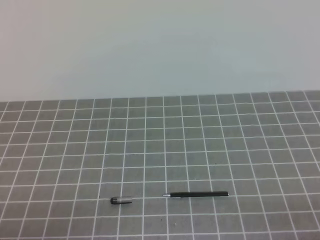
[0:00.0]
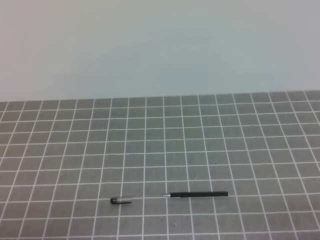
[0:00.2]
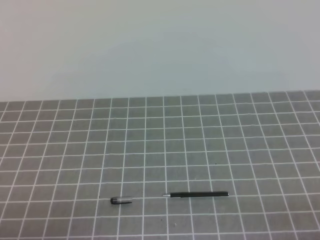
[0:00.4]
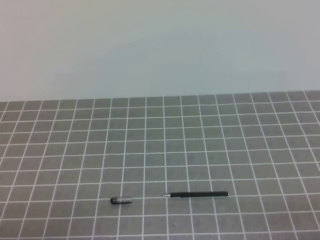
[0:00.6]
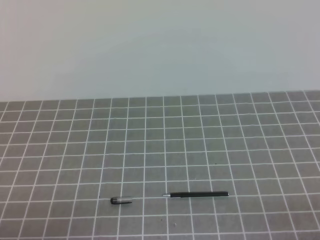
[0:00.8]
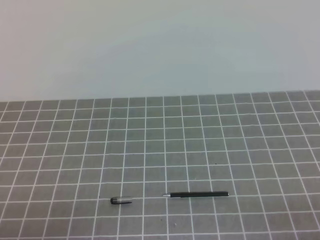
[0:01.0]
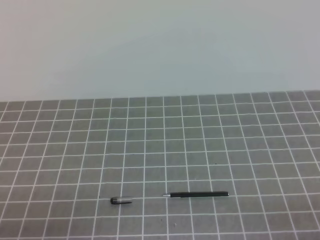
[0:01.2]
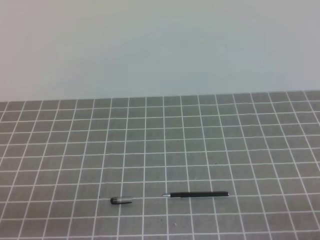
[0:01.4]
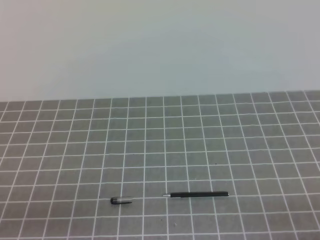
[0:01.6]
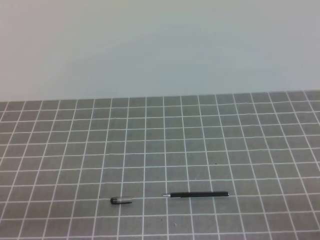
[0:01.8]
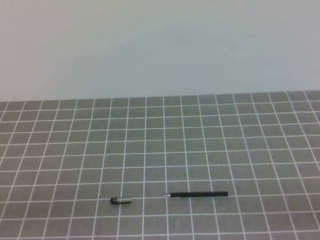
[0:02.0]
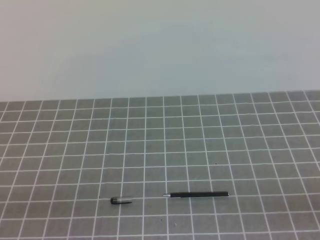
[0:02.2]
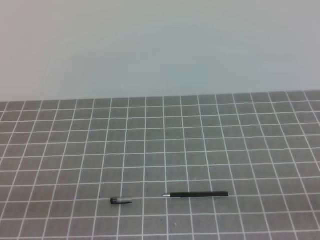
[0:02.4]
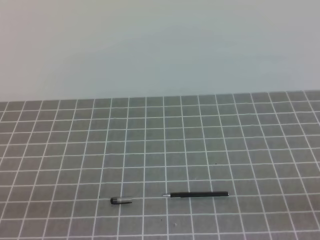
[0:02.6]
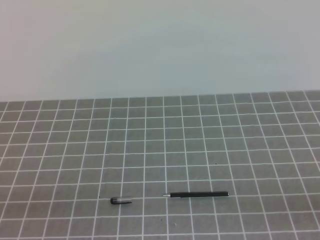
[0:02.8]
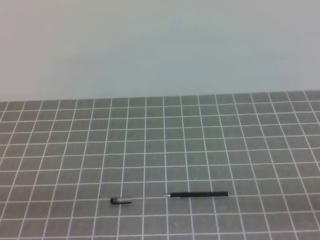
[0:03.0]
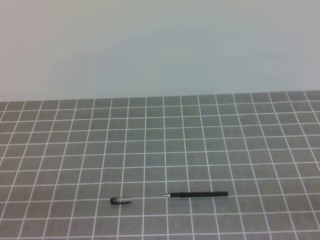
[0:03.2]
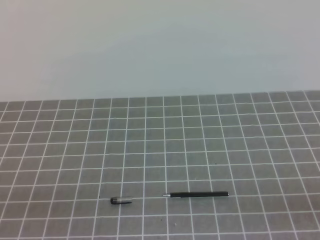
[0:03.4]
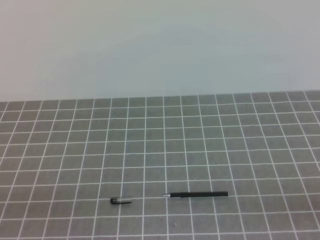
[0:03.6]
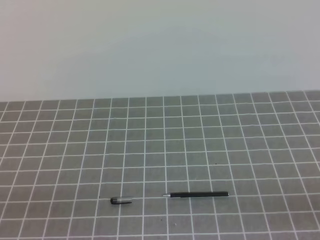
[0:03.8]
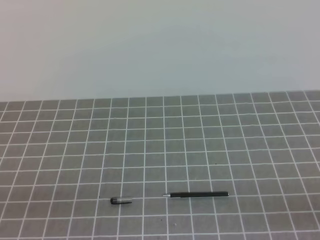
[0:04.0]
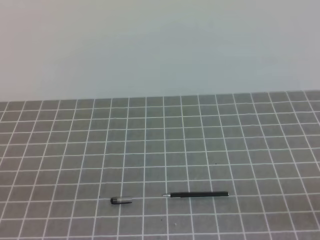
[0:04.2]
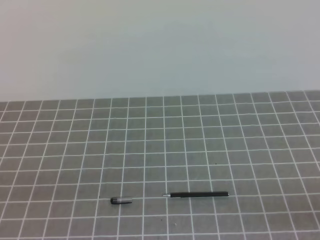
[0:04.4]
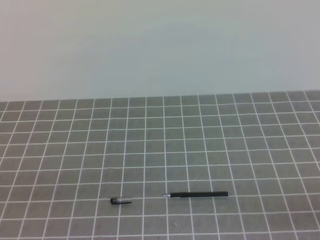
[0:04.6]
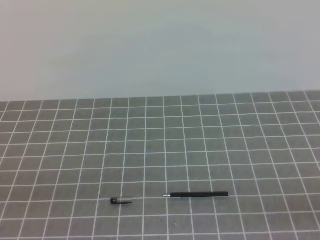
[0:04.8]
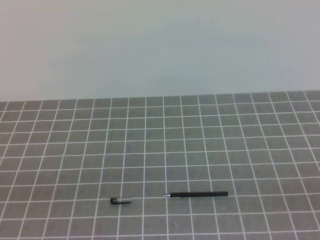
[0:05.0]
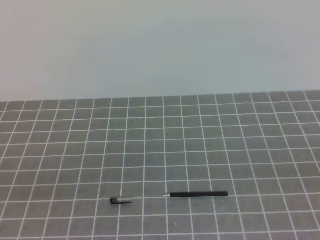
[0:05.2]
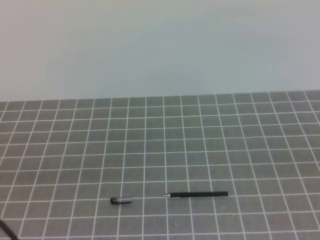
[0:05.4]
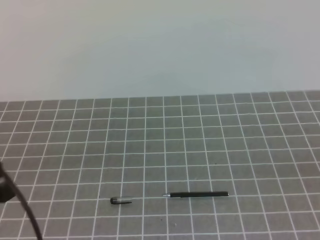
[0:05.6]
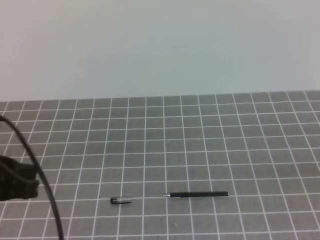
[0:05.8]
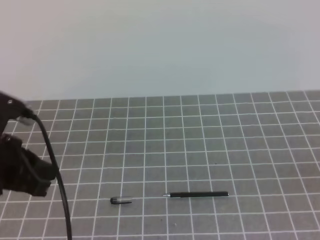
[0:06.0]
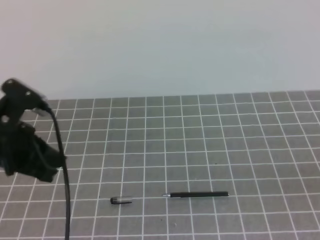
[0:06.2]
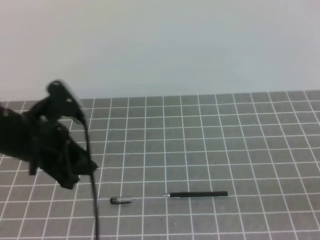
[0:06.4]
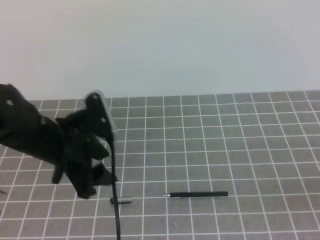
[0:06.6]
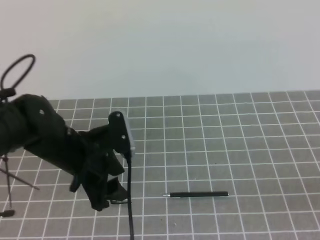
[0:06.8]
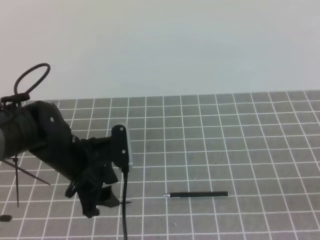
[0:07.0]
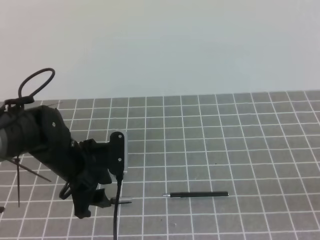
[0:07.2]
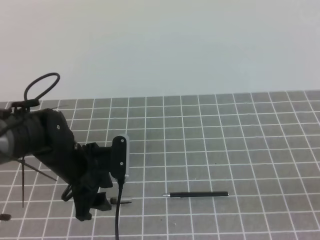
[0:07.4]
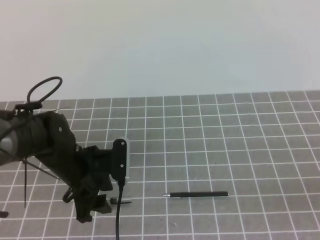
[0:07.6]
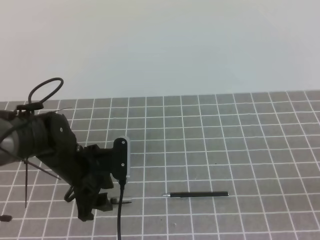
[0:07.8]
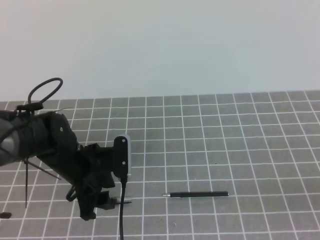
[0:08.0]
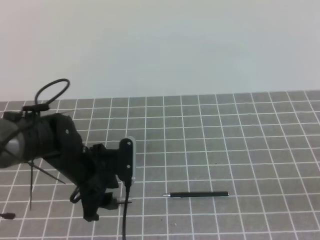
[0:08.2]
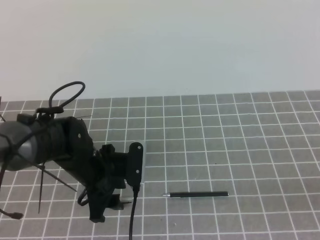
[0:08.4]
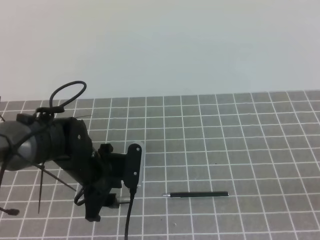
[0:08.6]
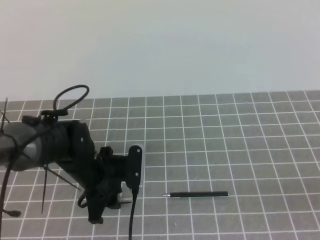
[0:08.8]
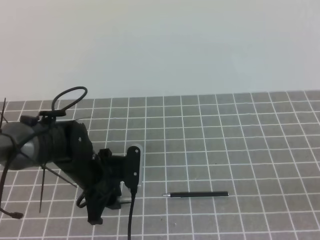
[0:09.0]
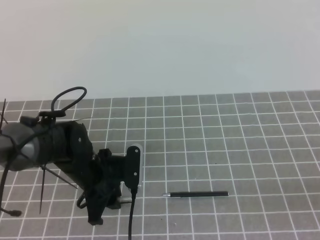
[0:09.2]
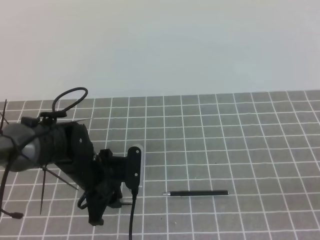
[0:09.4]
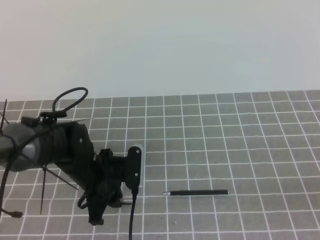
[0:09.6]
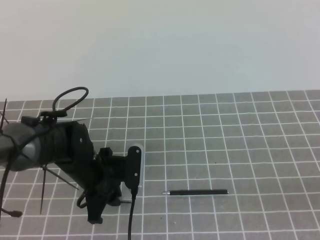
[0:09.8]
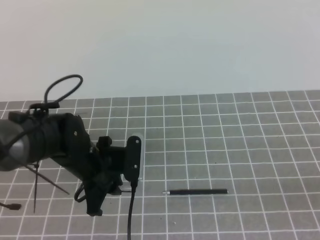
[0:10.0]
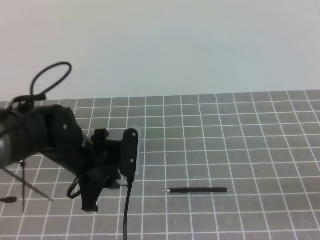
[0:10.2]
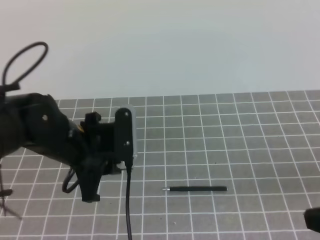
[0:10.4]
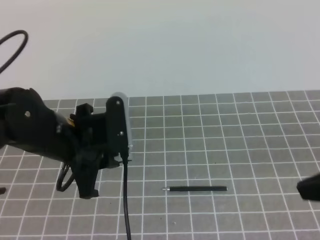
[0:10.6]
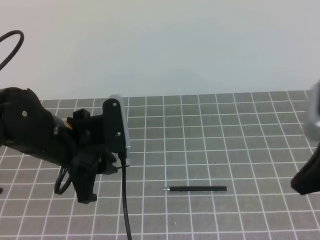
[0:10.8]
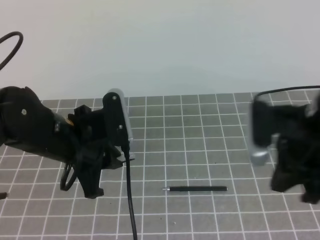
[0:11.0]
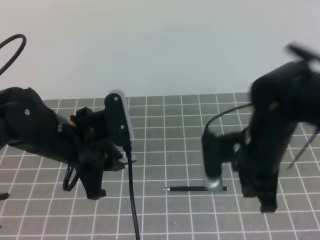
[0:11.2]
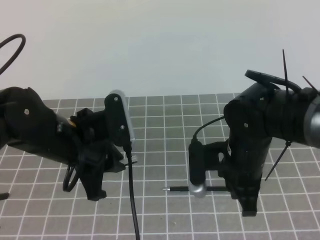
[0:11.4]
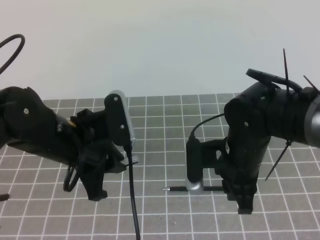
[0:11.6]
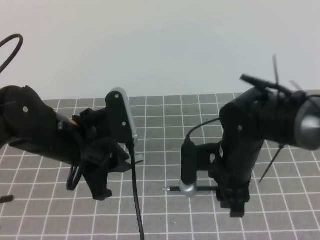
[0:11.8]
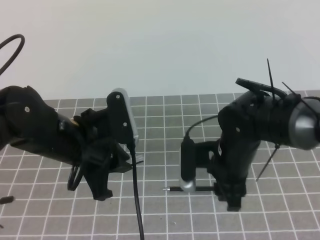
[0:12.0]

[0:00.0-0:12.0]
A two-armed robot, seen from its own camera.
Task of the whole recording: on the grey tablecloth, hold the pen cap in one hand and the pen in the other, then cover the pen cap.
0:04.4 to 0:06.0: The left gripper moves forward, some 15 cm.
0:06.0 to 0:07.6: The left gripper moves downward, forward and to the right, some 20 cm, and opens its fingers.
0:07.6 to 0:09.0: The left gripper closes its fingers.
0:09.0 to 0:10.4: The left gripper is displaced upward by about 10 cm, and closes up.
0:10.4 to 0:12.0: The right gripper is displaced forward, to the left and downward by approximately 30 cm, and opens.

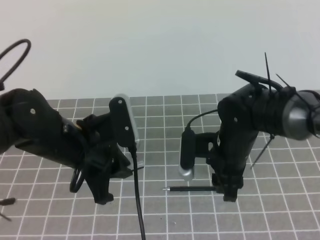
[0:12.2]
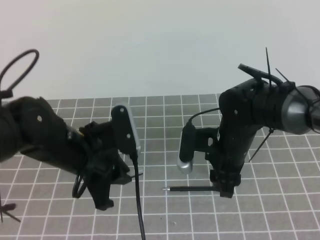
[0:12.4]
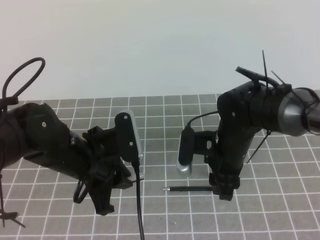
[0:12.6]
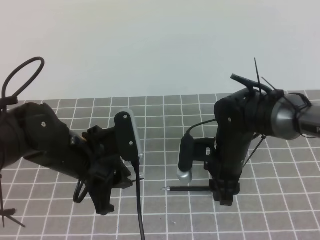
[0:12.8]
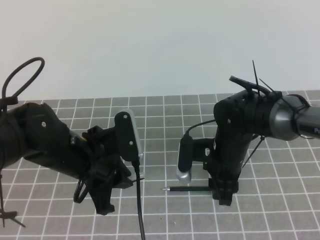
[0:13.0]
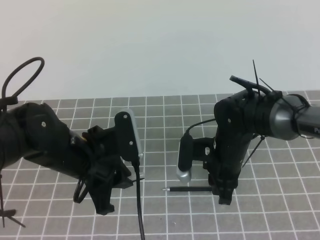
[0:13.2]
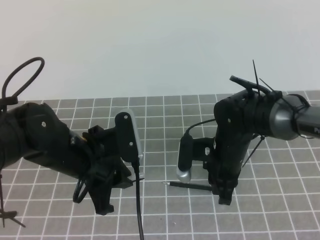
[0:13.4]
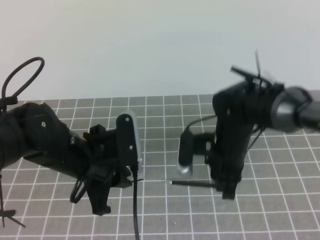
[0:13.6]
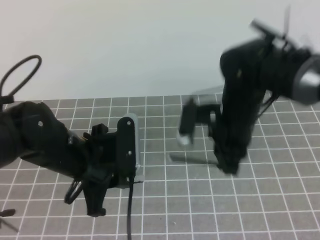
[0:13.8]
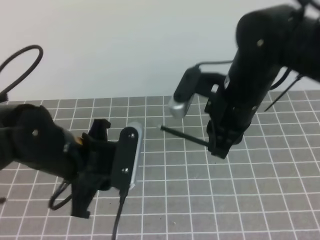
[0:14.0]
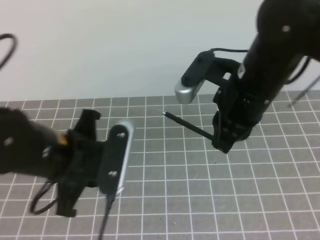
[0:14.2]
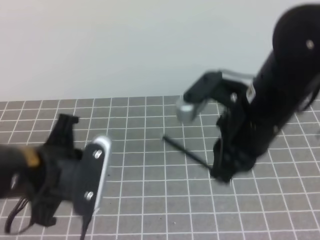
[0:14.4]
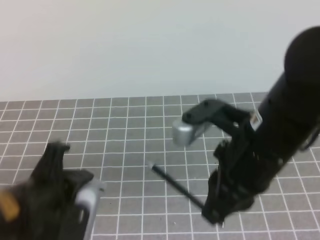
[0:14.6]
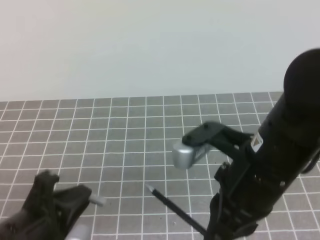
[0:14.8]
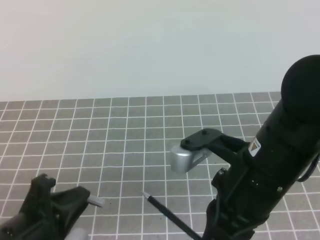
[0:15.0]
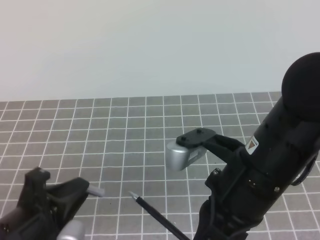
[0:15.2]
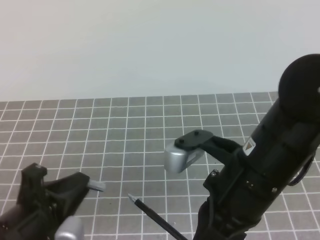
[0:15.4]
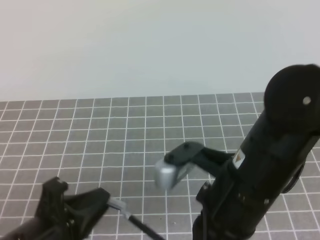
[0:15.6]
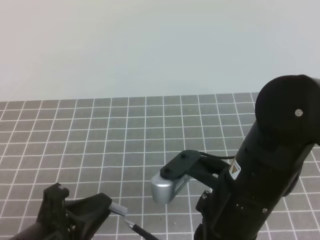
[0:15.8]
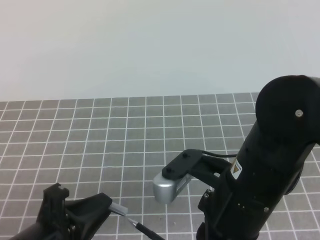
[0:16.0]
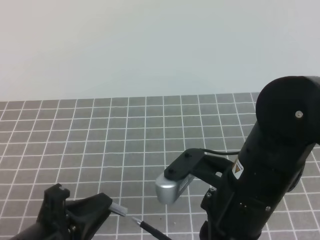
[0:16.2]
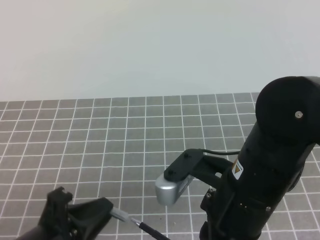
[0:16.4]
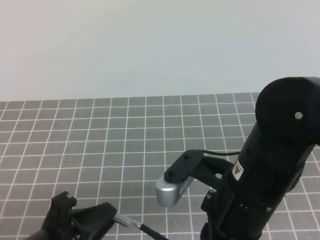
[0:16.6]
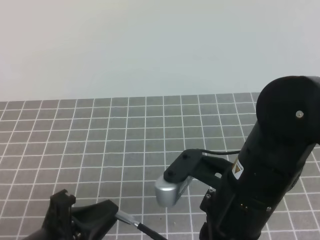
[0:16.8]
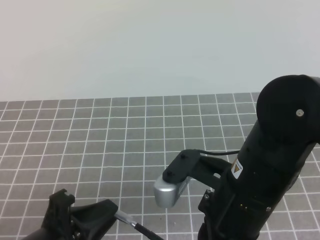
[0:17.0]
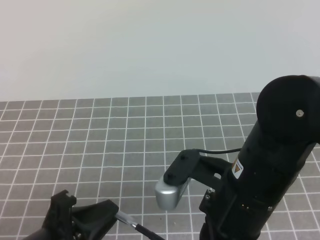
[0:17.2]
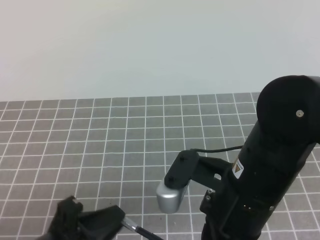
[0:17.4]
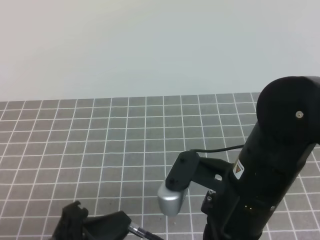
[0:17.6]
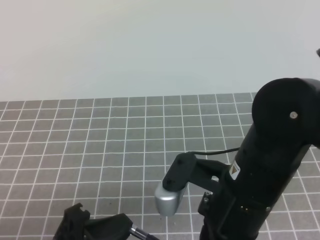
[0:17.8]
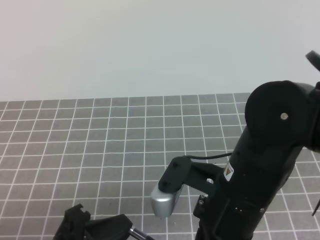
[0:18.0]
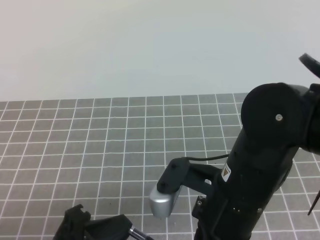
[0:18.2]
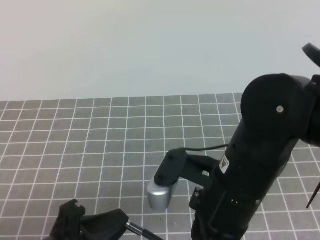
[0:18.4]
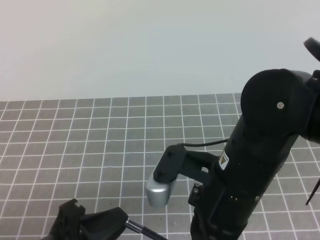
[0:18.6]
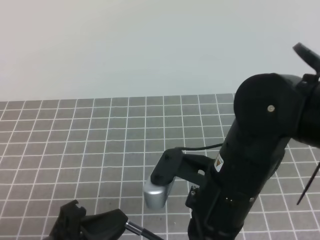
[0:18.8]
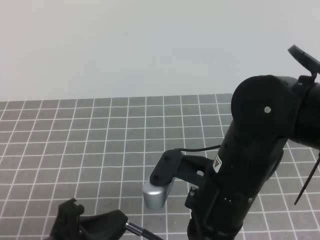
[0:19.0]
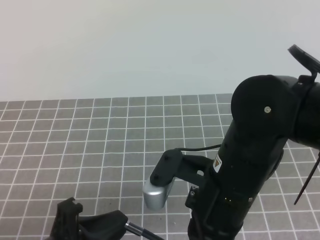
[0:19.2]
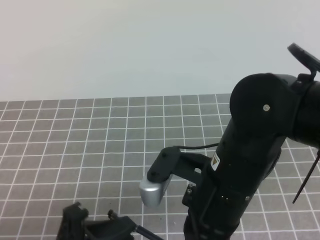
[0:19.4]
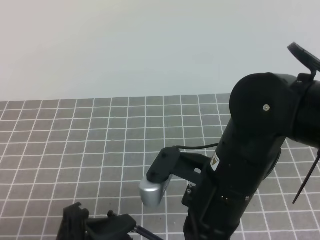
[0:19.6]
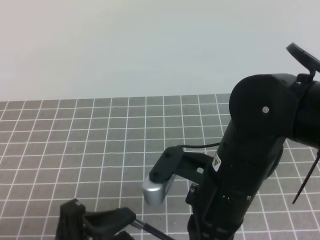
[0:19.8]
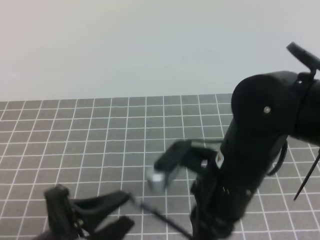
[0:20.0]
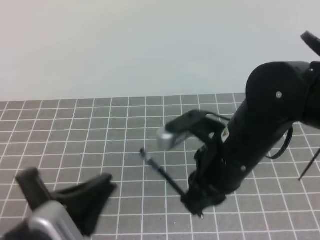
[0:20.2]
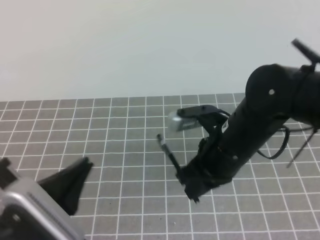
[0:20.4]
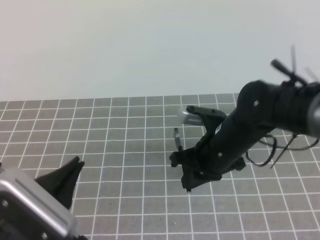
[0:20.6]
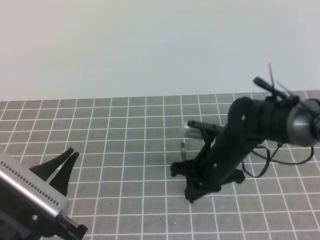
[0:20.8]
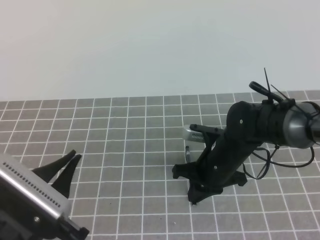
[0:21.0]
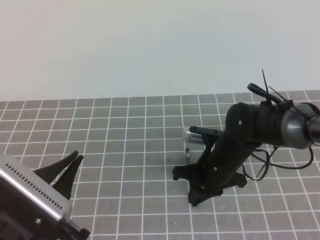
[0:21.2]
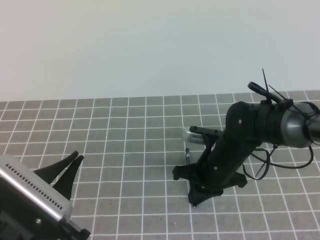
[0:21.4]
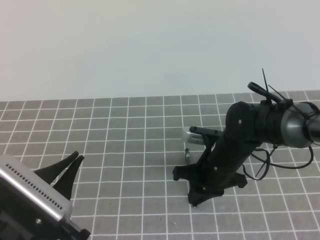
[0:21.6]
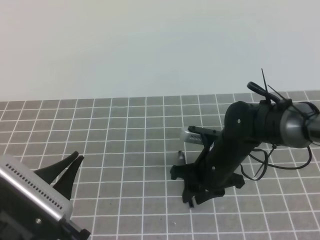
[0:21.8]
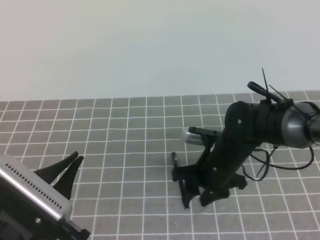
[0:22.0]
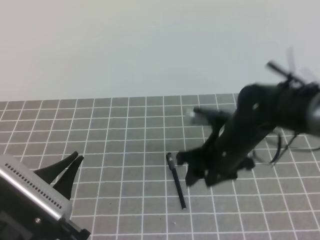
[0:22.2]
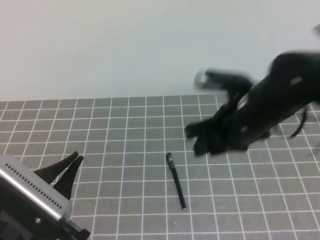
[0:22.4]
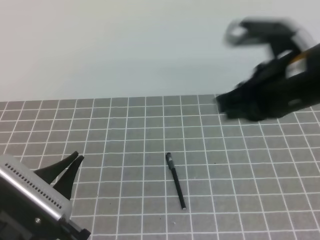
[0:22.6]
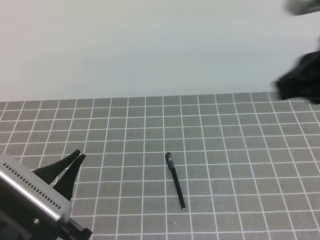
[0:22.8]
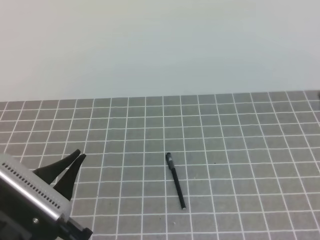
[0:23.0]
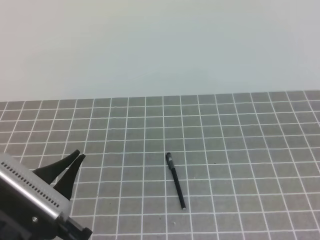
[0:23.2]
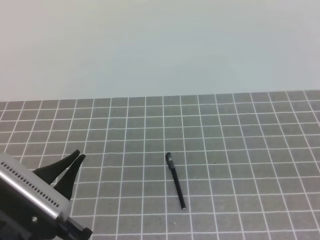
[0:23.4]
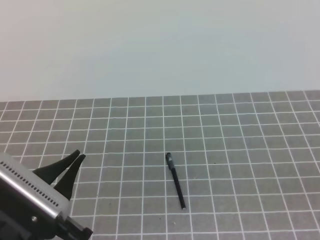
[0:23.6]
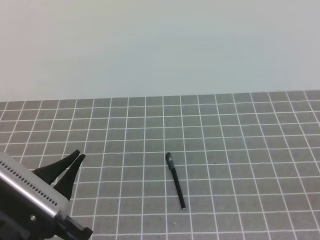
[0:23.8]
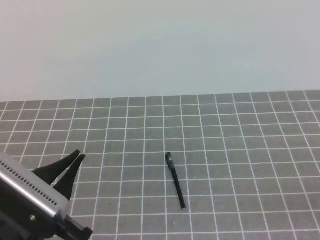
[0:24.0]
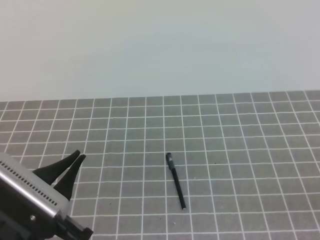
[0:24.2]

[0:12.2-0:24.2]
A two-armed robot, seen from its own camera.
Task of the whole recording: on the grey tablecloth, hold the pen cap in one hand and the pen in the other, then cover the pen cap.
0:12.2 to 0:13.8: The right gripper moves upward, approximately 5 cm, and closes up.
0:13.8 to 0:15.2: The right gripper is displaced backward and upward by about 15 cm; the left gripper goes some 15 cm backward and to the left.
0:15.2 to 0:18.2: The grippers move only a little.
0:18.2 to 0:19.8: The left gripper opens up.
0:19.8 to 0:21.2: The right gripper shifts roughly 20 cm forward and downward. Meanwhile the left gripper closes its fingers.
0:21.2 to 0:22.6: The right gripper heads upward, covering approximately 20 cm, and opens, then closes once more.
0:22.6 to 0:24.2: The right gripper moves backward, to the right and downward, roughly 25 cm, and closes.
